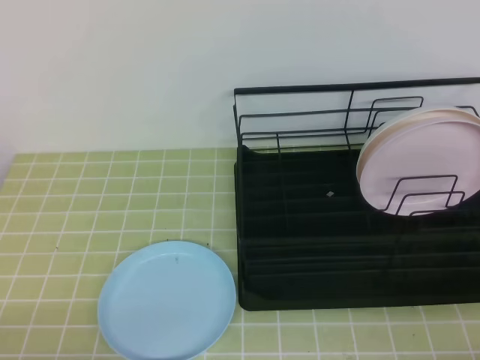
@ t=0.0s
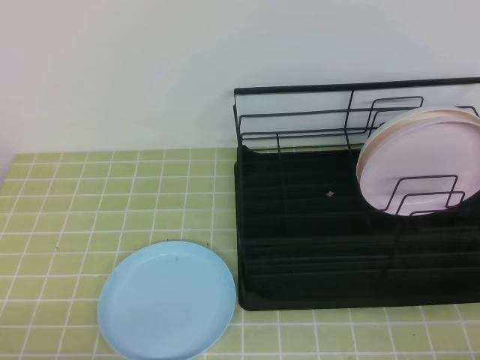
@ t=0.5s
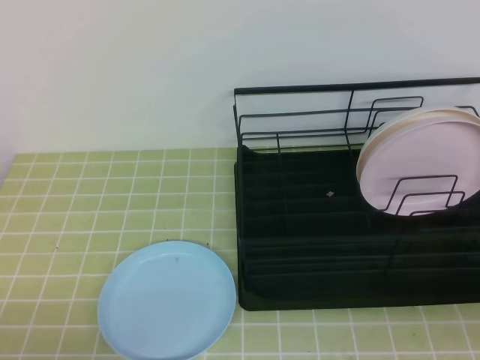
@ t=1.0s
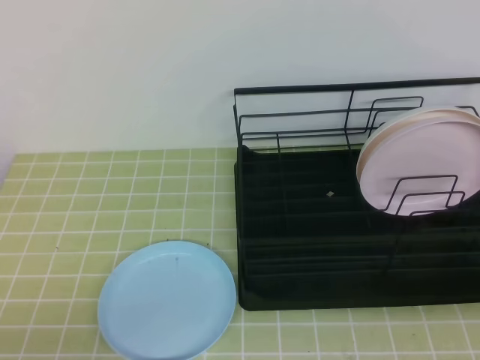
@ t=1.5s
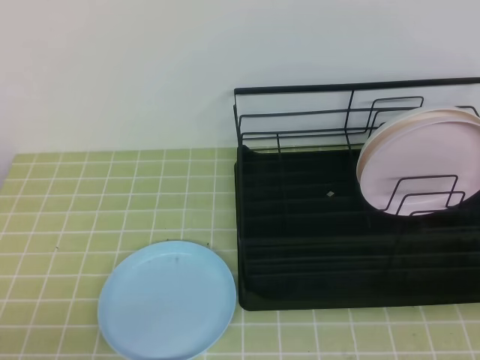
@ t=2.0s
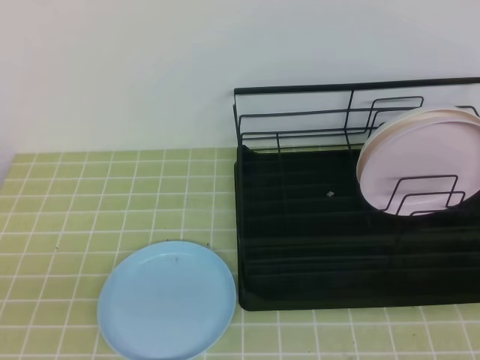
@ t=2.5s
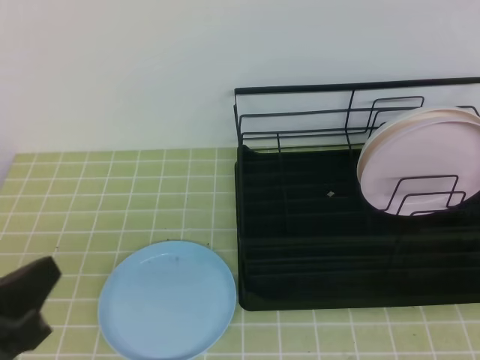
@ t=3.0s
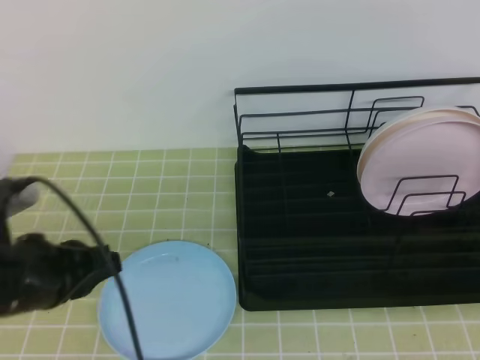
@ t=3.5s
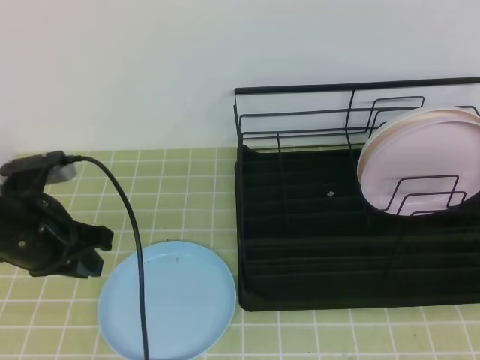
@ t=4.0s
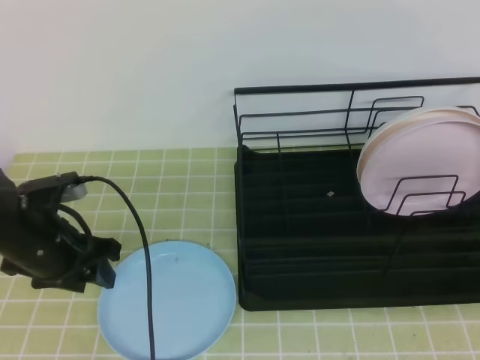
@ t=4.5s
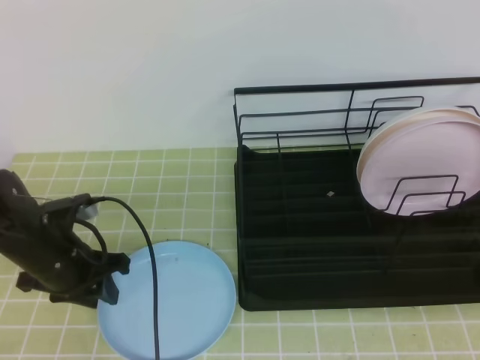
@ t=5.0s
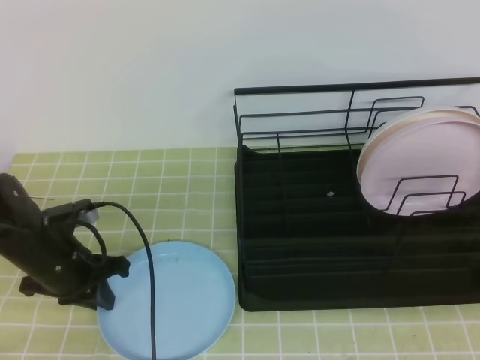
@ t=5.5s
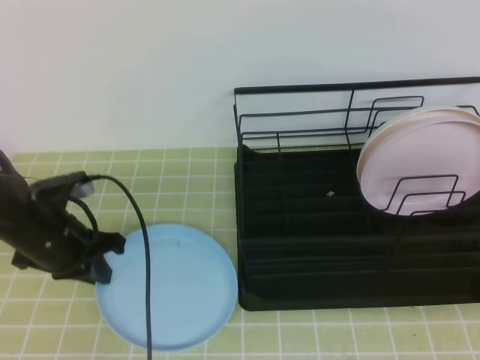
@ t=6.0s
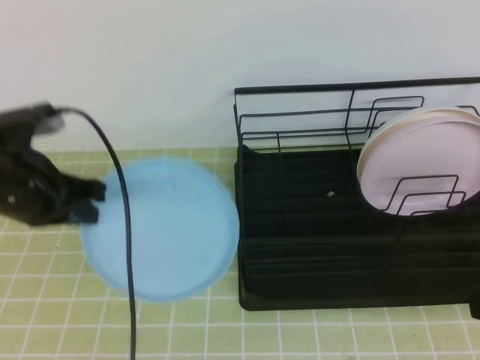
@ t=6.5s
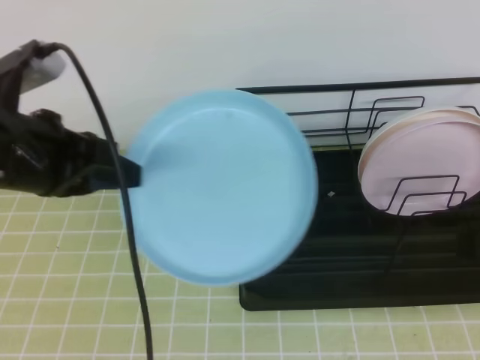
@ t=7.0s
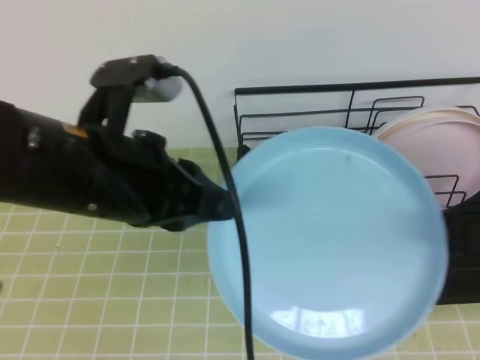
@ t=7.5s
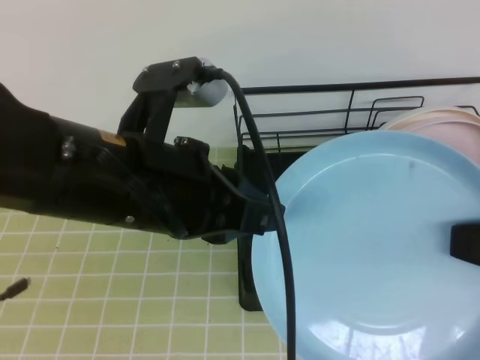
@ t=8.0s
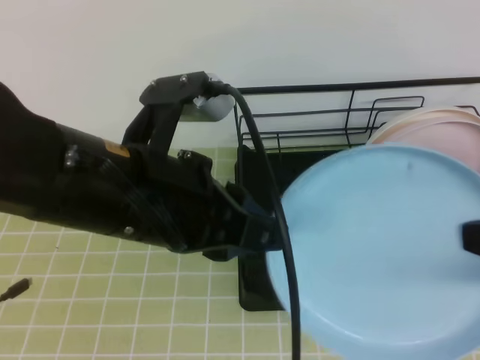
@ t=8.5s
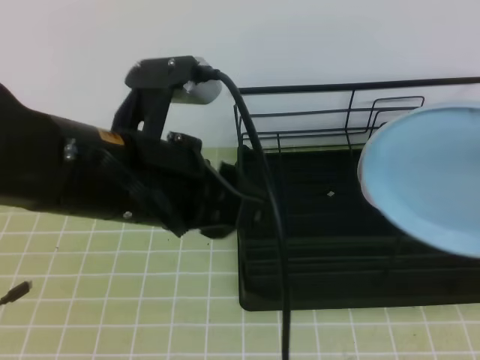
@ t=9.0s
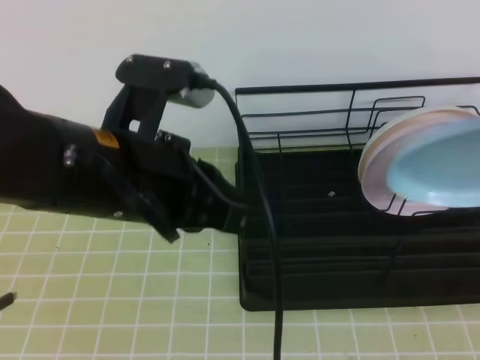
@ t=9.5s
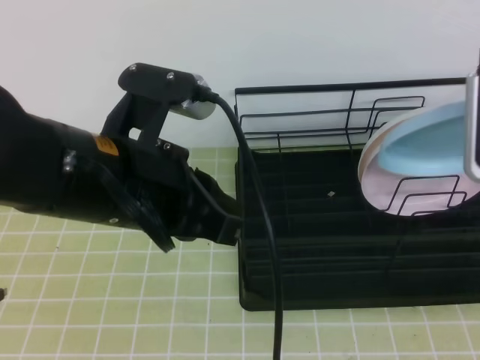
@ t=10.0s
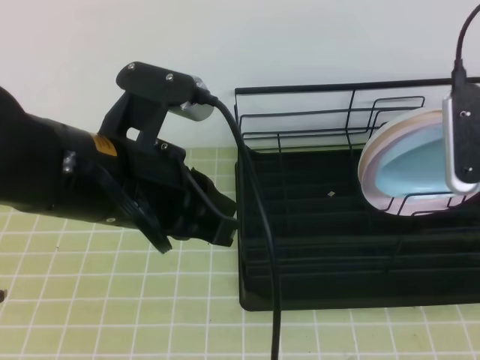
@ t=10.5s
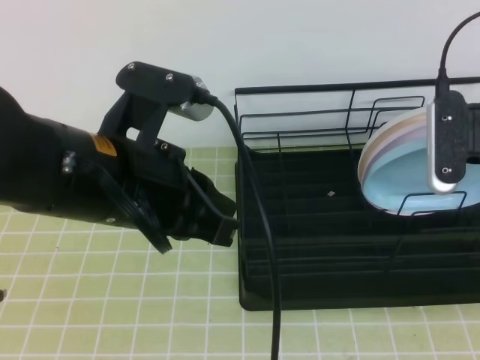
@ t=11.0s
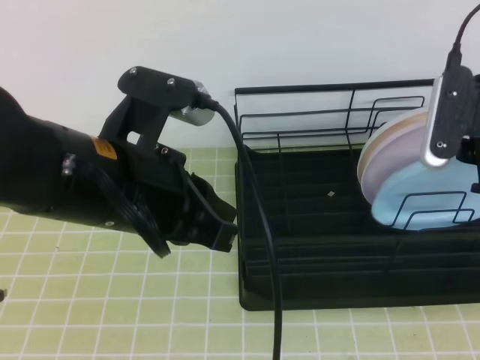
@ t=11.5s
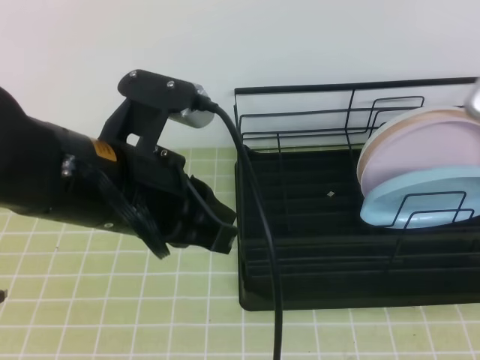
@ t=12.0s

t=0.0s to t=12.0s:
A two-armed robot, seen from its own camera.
t=2.0s to t=4.0s: The left gripper is displaced forward by about 20 cm, and opens up.
t=4.0s to t=6.0s: The left gripper heads downward, covering some 5 cm, and closes.
t=6.0s to t=8.0s: The left gripper is displaced upward, to the right and backward by approximately 25 cm. The right gripper opens.
t=8.0s to t=10.0s: The left gripper opens, then closes again. The right gripper goes roughly 15 cm forward, and closes.
t=10.0s to t=12.0s: The right gripper opens and closes again.

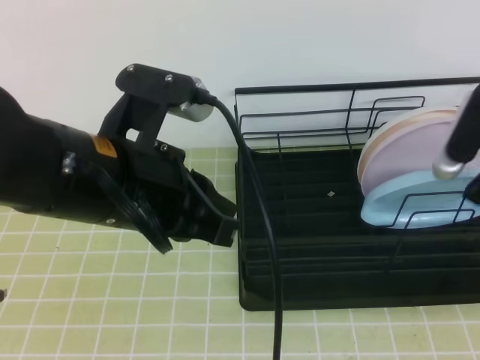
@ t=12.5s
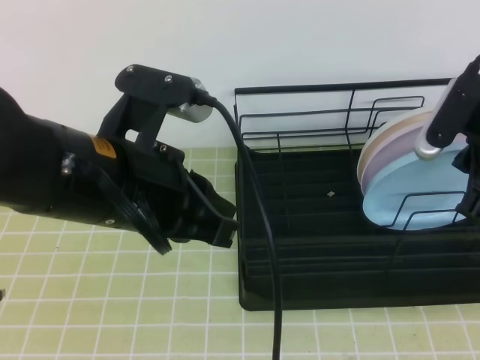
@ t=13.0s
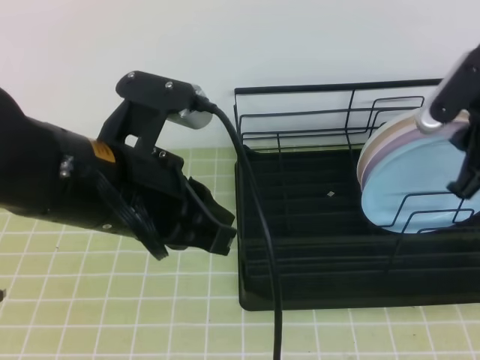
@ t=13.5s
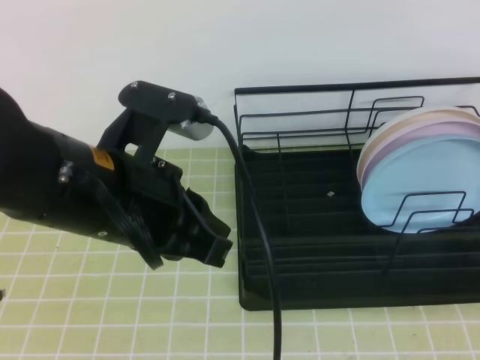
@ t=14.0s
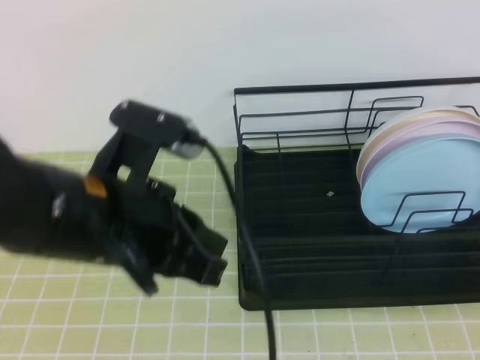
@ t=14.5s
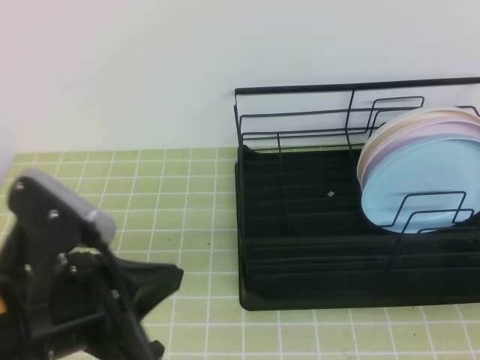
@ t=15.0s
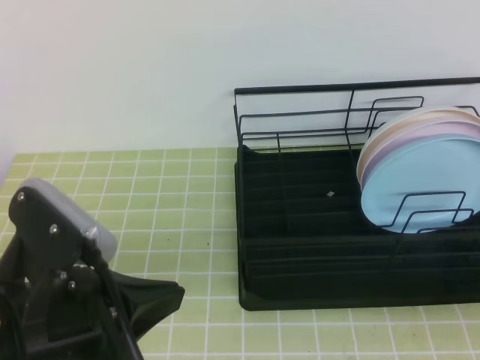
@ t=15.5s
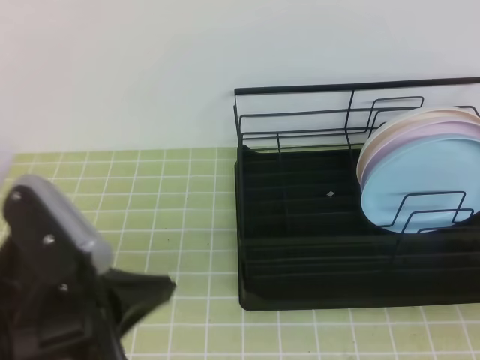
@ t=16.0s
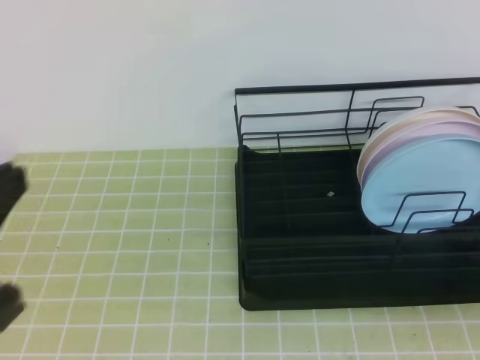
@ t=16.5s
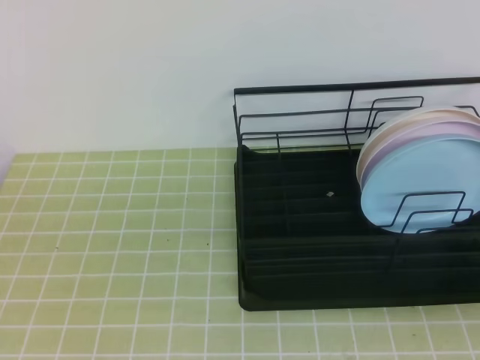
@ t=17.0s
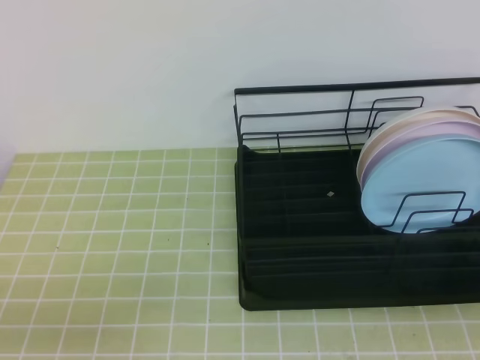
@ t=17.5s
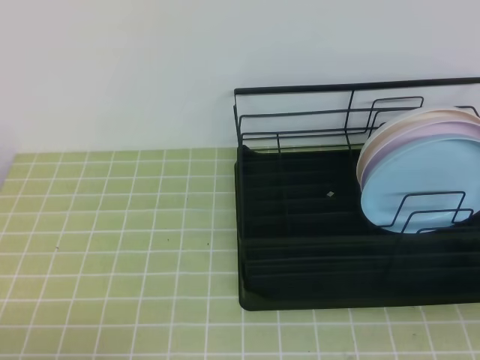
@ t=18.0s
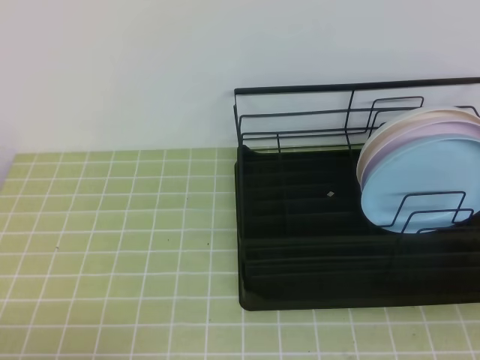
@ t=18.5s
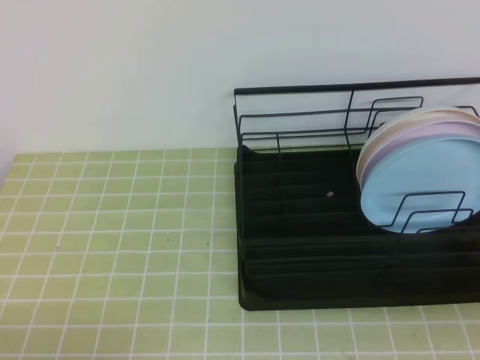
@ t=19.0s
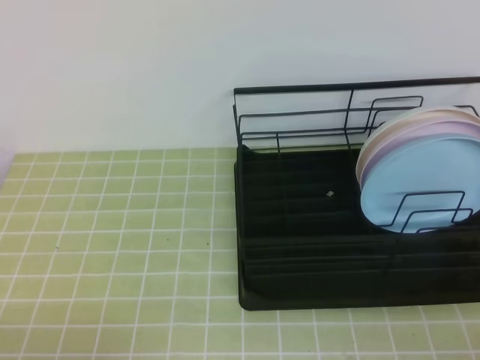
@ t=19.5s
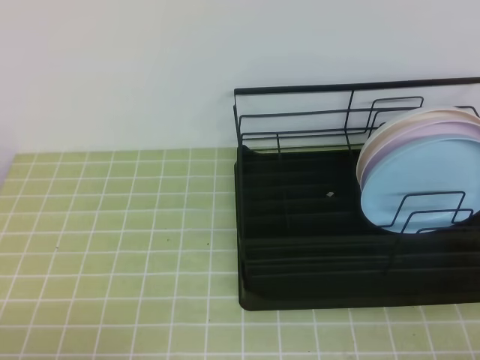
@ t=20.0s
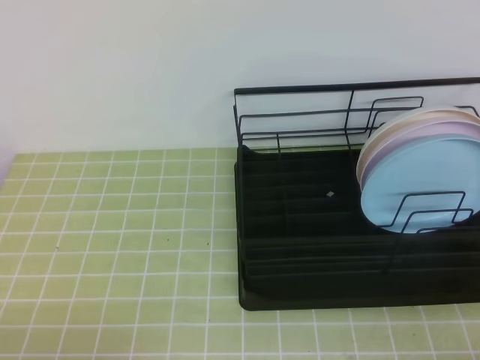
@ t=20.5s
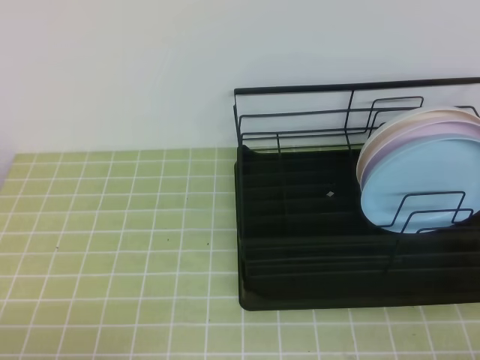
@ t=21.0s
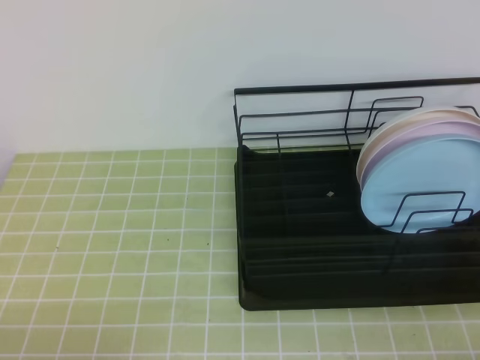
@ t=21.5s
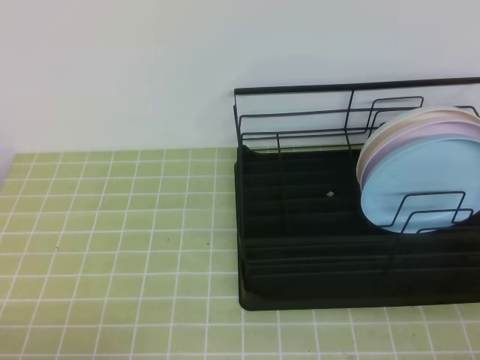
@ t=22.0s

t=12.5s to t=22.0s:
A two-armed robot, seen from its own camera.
t=12.5s to t=14.5s: The right gripper goes approximately 20 cm backward.
t=14.5s to t=16.5s: The left gripper is displaced to the left and backward by roughly 15 cm. The right gripper travels downward by some 5 cm.
t=16.5s to t=18.0s: The left gripper heads downward, covering roughly 15 cm.
t=20.0s to t=22.0s: Neither gripper changes place.
